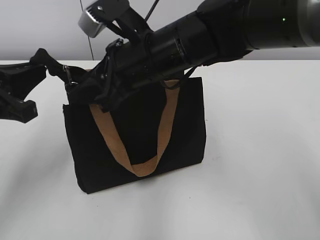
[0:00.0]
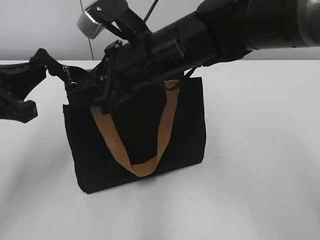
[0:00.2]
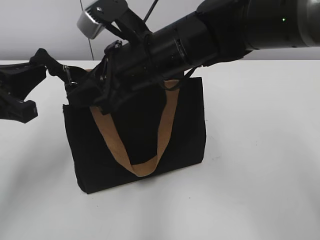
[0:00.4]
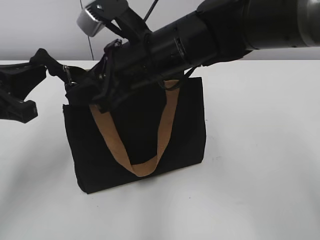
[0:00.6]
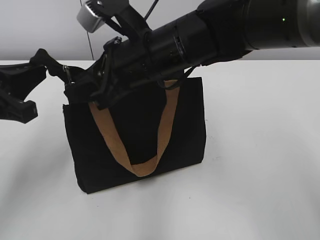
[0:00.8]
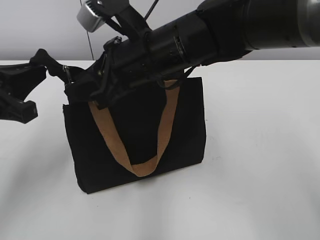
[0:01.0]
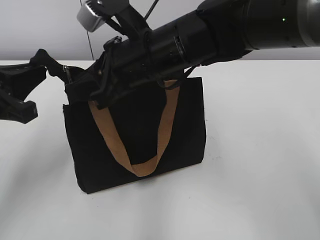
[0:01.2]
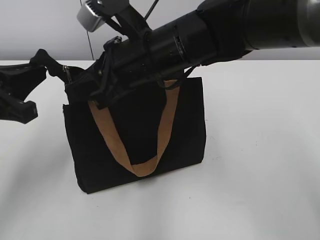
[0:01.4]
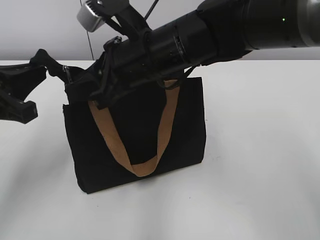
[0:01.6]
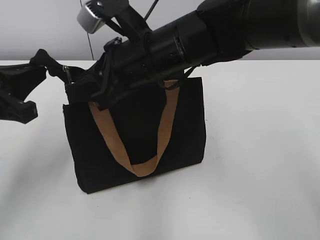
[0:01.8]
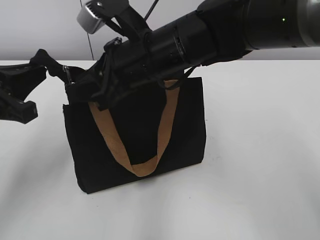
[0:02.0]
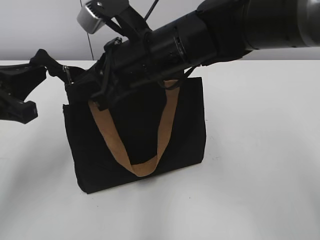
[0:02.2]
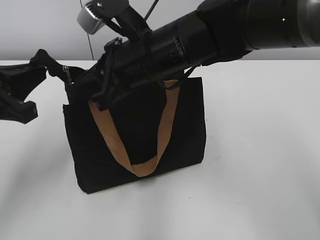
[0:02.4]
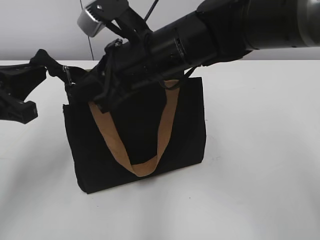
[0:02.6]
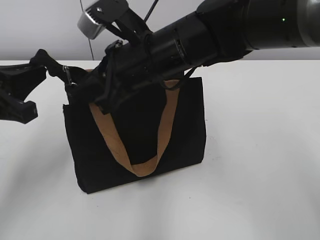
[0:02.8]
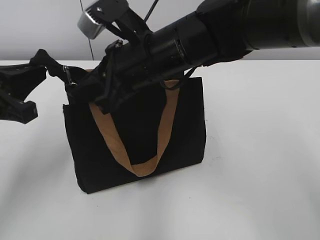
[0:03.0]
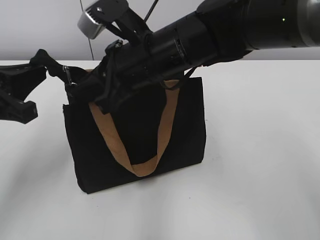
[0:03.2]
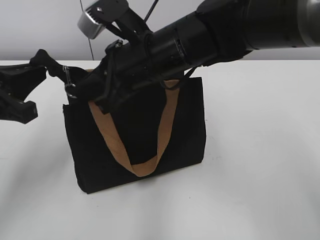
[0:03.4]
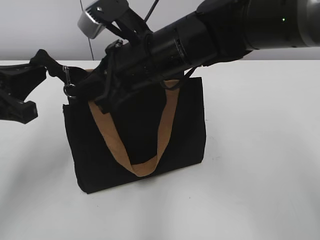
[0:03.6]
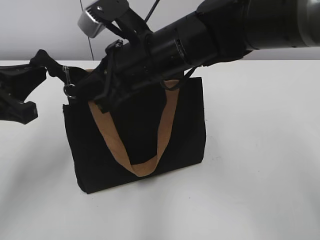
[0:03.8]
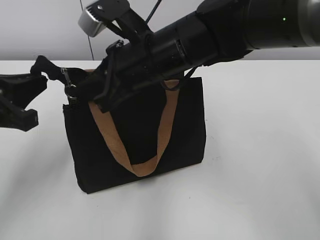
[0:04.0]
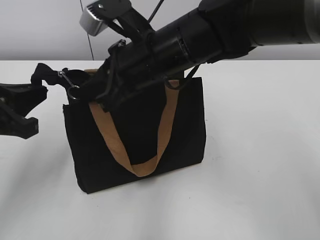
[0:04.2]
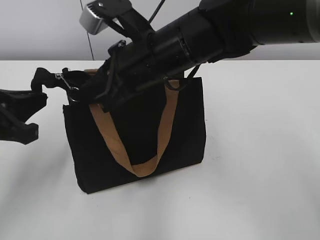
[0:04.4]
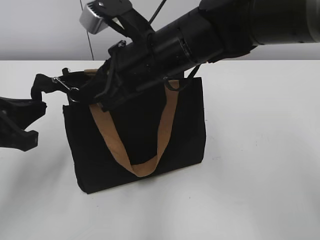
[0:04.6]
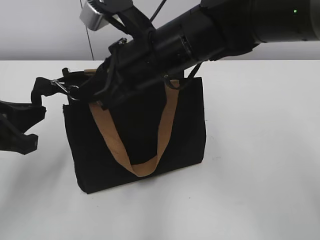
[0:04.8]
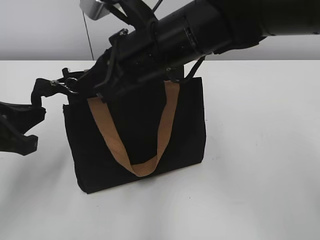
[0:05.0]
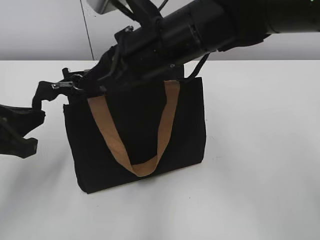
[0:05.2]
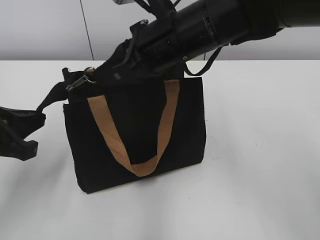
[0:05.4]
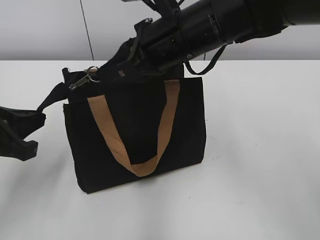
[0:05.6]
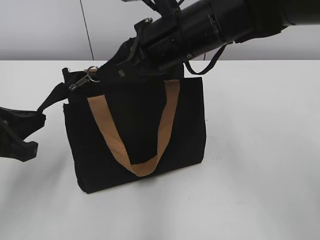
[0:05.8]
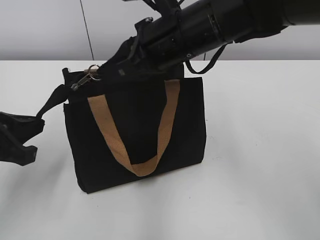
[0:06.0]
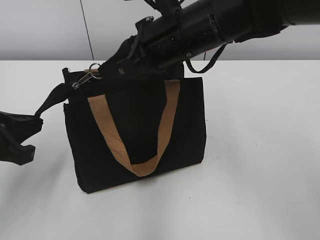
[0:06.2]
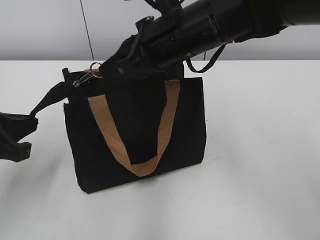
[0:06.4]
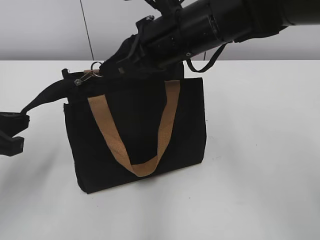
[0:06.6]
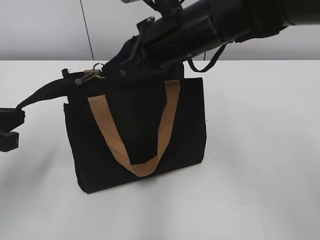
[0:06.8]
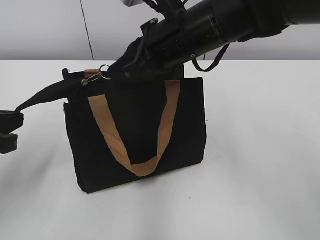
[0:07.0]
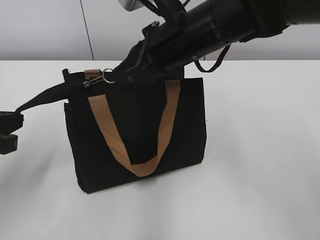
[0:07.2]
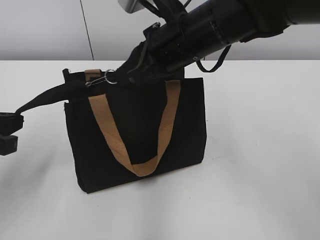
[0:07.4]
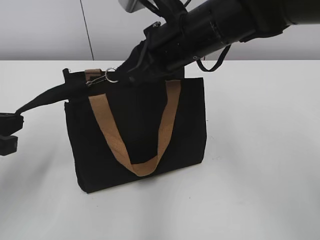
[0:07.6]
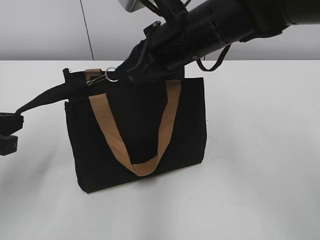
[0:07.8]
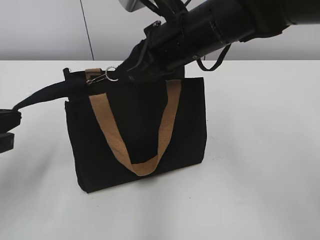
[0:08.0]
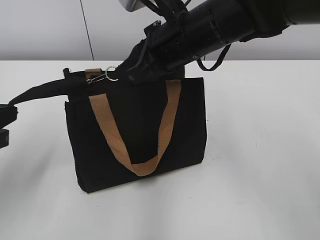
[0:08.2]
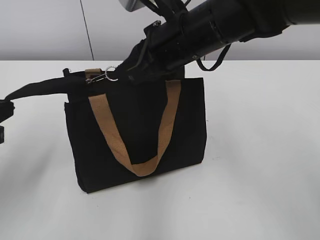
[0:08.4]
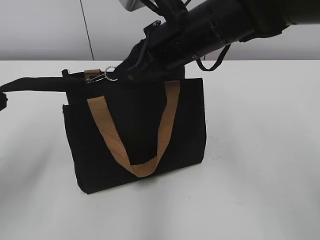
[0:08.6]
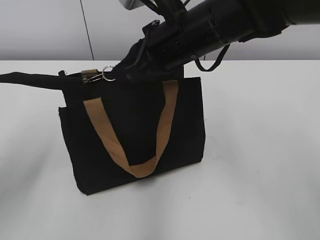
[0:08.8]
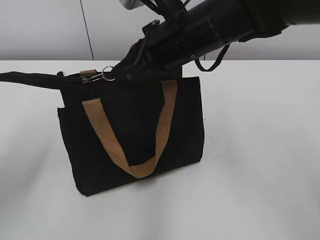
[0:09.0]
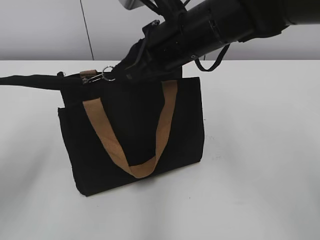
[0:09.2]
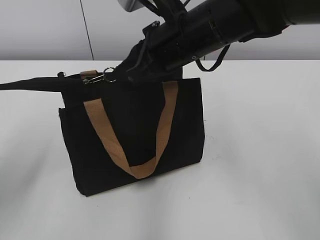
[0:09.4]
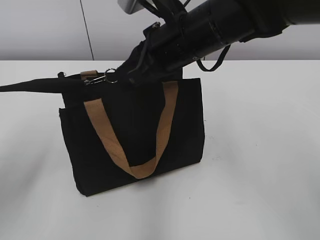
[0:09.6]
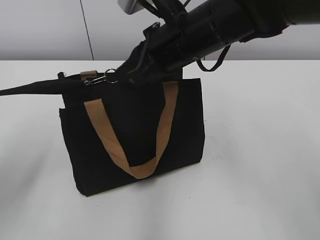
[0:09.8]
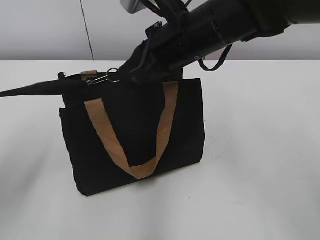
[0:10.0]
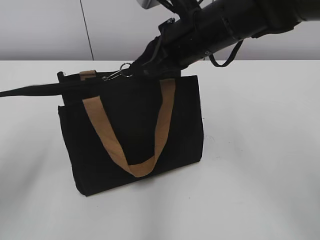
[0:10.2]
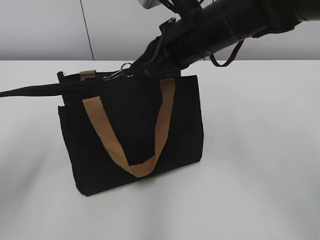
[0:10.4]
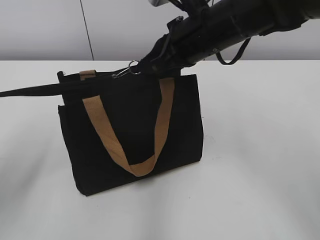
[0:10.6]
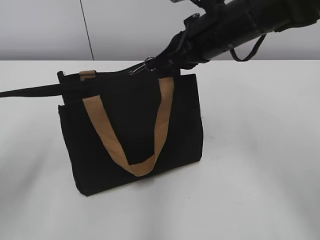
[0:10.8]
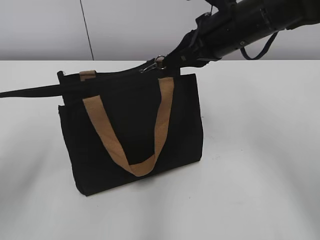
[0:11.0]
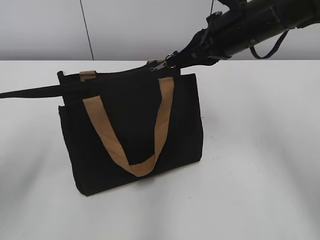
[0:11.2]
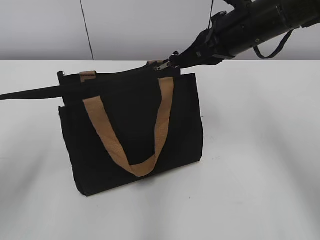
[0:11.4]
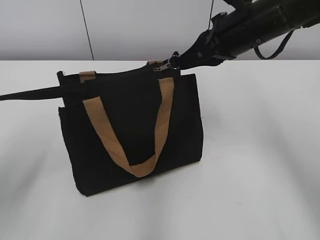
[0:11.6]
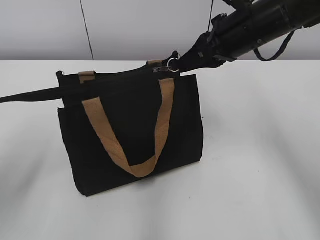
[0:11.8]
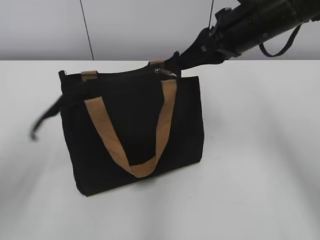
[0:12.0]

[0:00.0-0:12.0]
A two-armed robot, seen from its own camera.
Step, 0:00.0 to 0:11.8: Grab the zipper with your left hand.
0:00.0 to 0:03.0: The two grippers keep their place.
0:03.0 to 0:04.4: The grippers stay close to where they were, moving slightly.
0:04.4 to 0:07.6: There are only small adjustments of the grippers.
0:07.6 to 0:09.0: The left gripper ends up some 5 cm from where it was.
0:09.0 to 0:10.4: The grippers move only a little.
0:10.4 to 0:12.0: The right gripper moves to the right, approximately 10 cm, and opens its fingers.

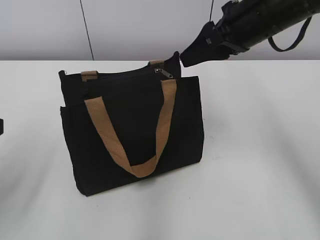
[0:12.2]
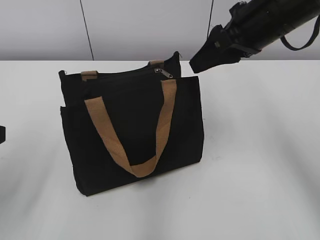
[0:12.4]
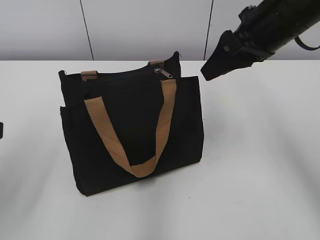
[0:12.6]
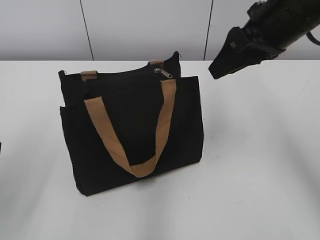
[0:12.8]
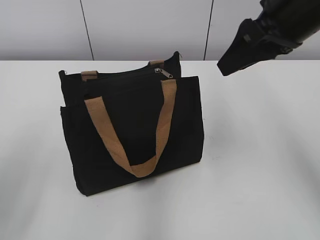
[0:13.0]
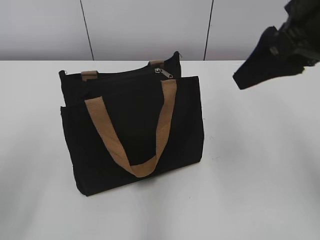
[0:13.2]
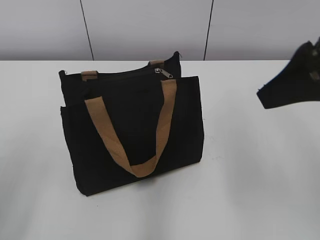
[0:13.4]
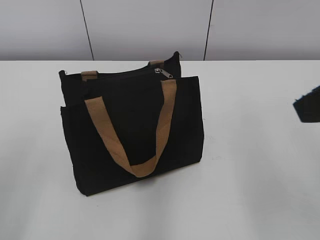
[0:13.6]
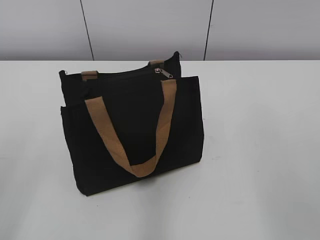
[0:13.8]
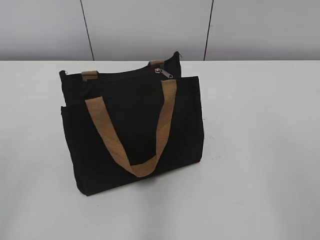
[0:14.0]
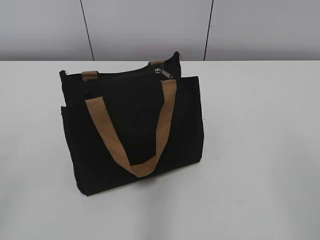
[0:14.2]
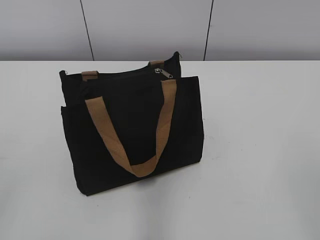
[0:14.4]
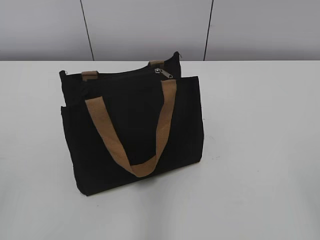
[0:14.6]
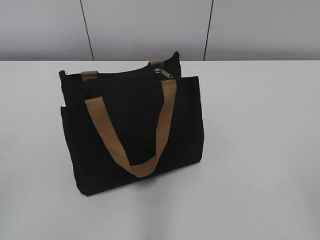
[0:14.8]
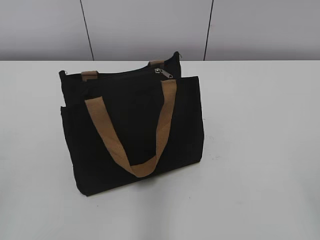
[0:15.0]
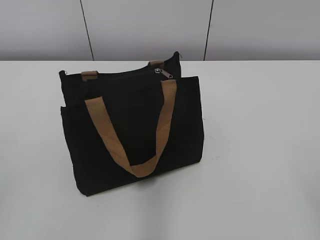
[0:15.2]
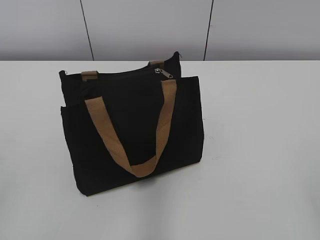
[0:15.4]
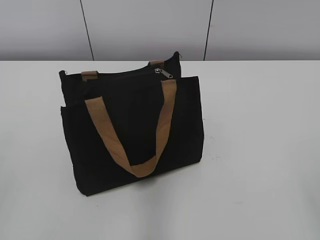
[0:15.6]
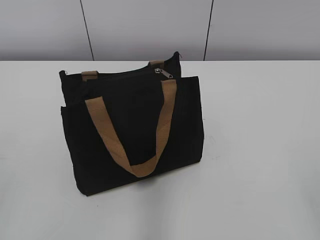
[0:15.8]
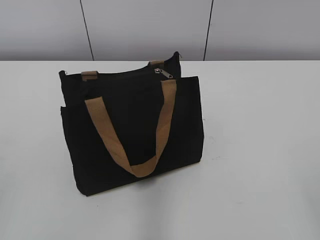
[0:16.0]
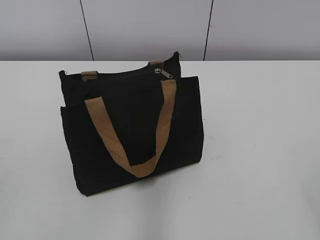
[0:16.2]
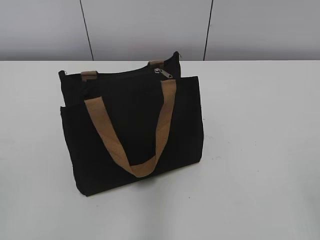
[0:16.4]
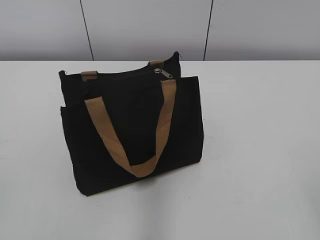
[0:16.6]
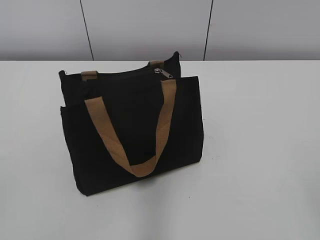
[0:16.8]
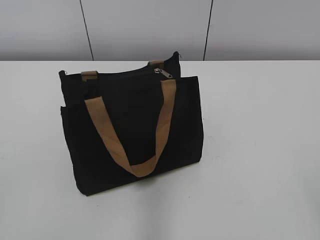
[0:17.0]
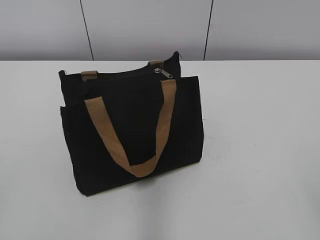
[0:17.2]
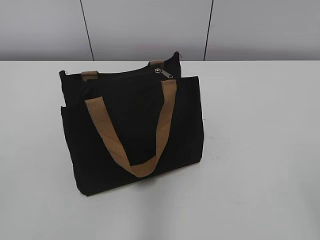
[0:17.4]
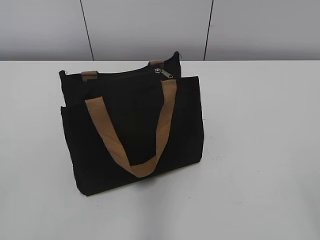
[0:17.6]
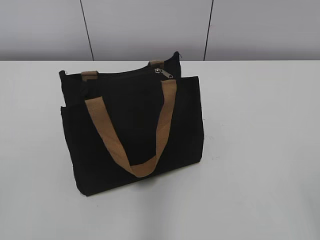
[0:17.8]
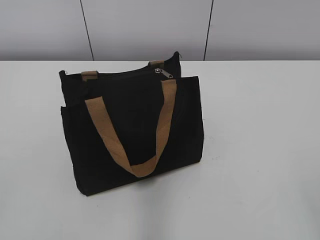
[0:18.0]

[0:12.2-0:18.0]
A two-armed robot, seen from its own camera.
0:12.2 to 0:13.6: The right gripper shifts about 20 cm backward. Meanwhile the left gripper shifts by some 5 cm.
0:13.6 to 0:15.0: The right gripper is displaced backward, to the right and downward by about 20 cm.

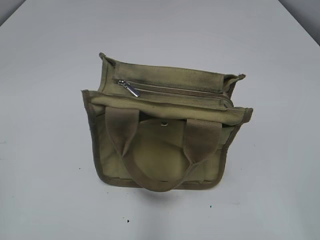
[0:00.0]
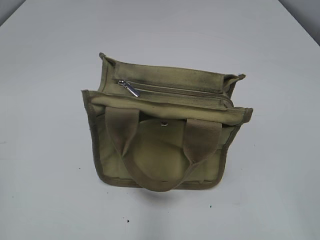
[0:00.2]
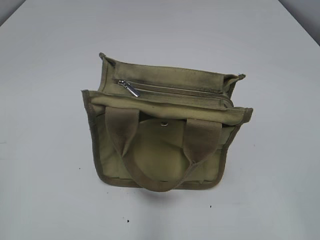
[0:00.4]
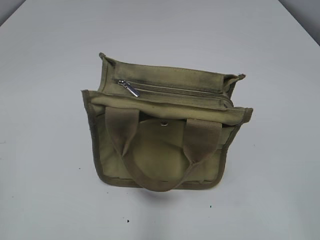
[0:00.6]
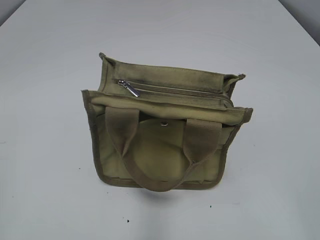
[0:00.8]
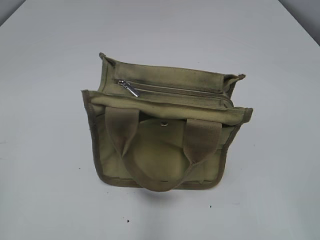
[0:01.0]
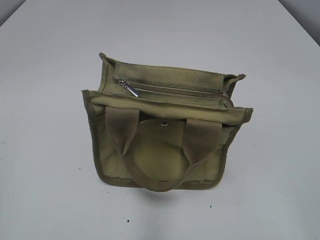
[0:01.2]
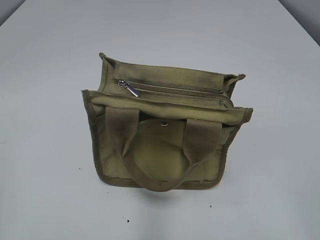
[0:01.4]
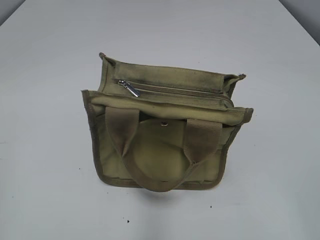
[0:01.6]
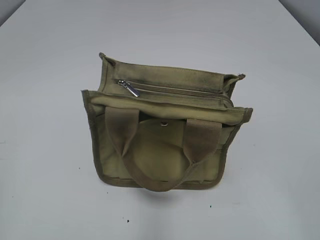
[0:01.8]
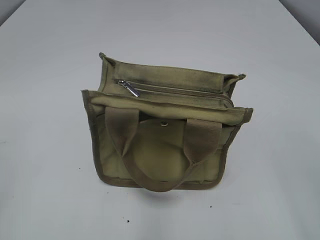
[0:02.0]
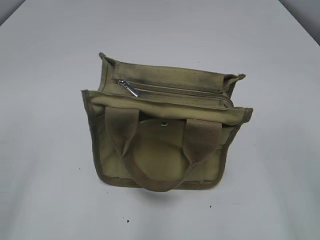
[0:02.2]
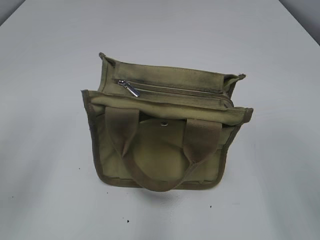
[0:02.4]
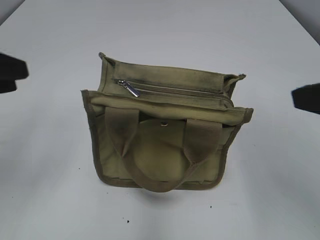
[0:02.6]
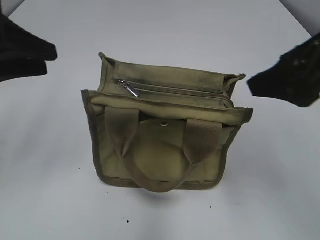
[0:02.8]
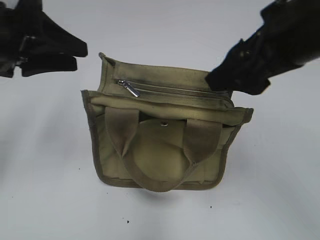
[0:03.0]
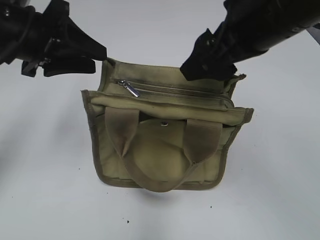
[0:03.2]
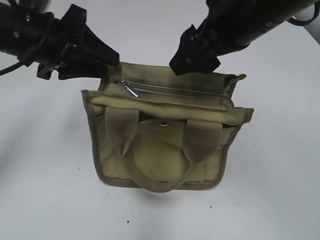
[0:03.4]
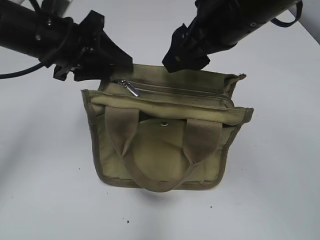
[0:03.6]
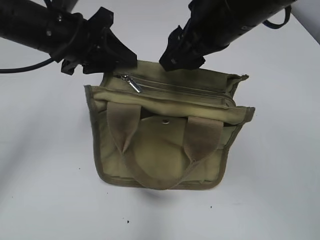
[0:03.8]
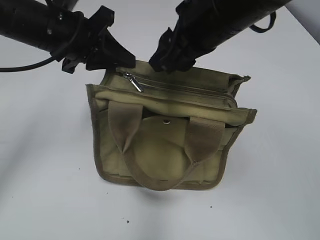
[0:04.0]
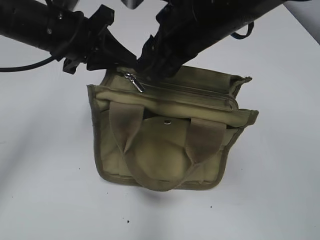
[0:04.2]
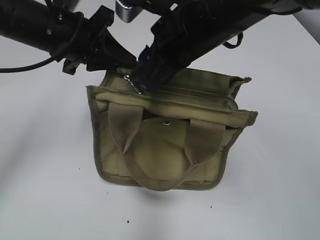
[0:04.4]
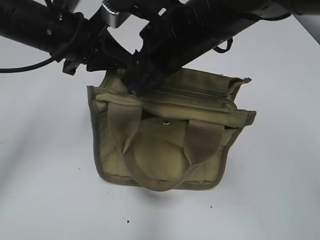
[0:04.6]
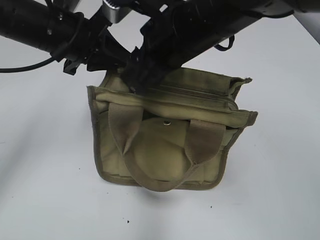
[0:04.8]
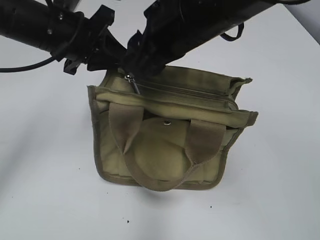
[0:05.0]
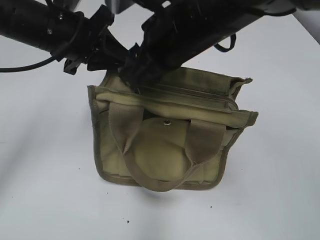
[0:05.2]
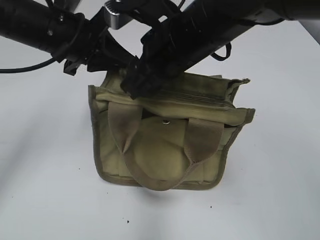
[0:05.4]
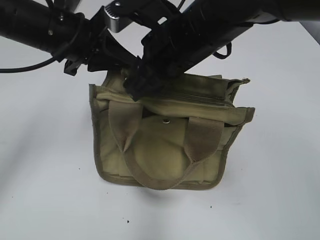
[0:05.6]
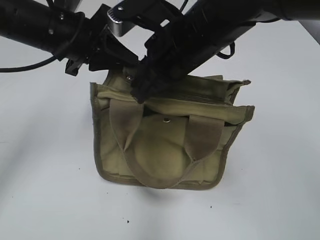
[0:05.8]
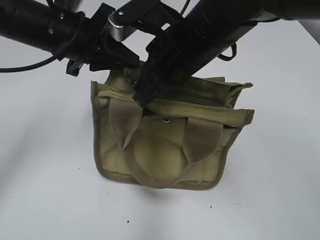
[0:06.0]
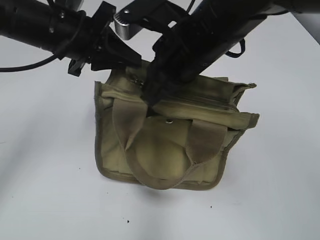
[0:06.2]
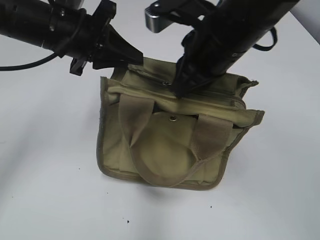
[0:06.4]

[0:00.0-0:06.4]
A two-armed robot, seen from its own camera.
0:01.6 to 0:03.2: The right gripper heads forward and to the left, covering some 30 cm. The left gripper moves forward and to the right, roughly 30 cm.
0:03.2 to 0:04.8: The right gripper shifts approximately 10 cm to the left, and closes up, while the left gripper ends up some 5 cm from where it was, and closes its fingers.
0:04.8 to 0:06.4: The right gripper is displaced to the right by some 5 cm, and closes up.
